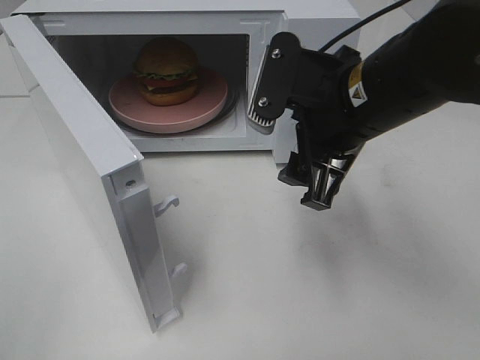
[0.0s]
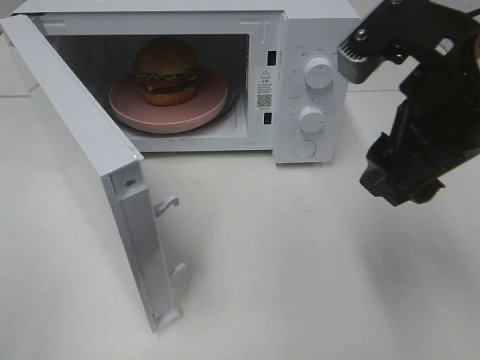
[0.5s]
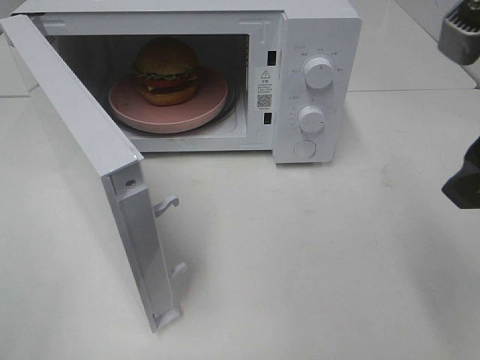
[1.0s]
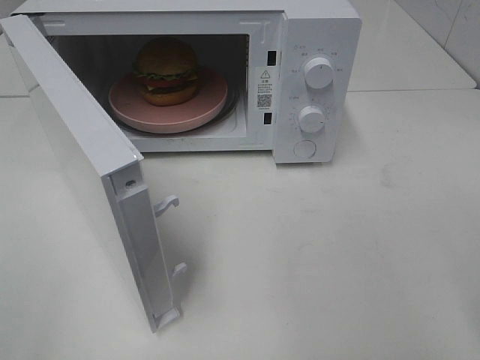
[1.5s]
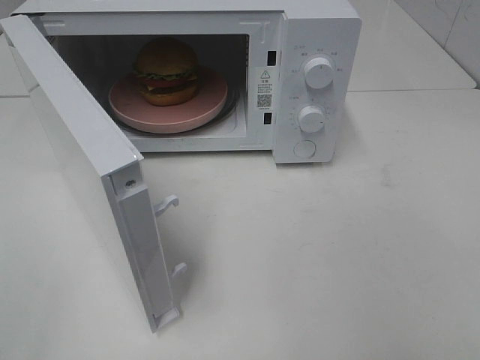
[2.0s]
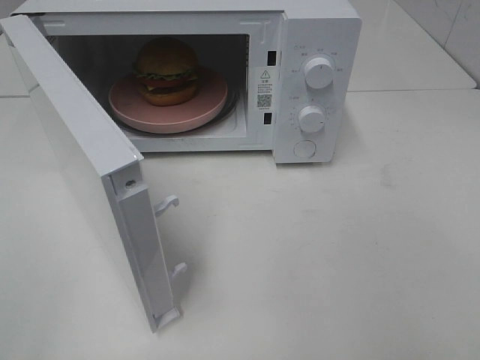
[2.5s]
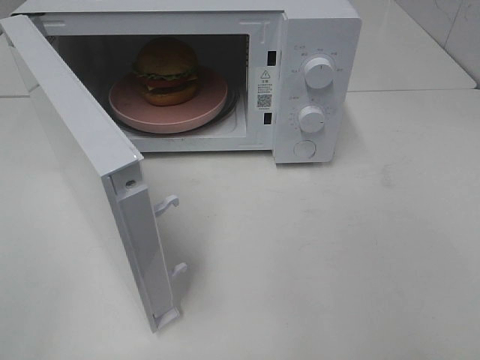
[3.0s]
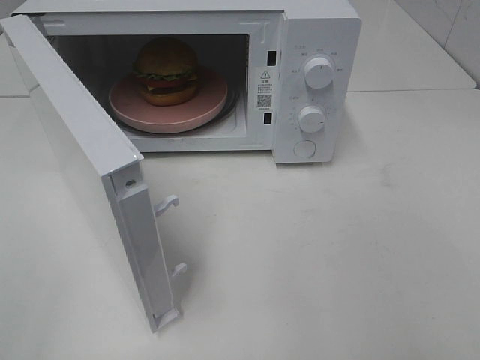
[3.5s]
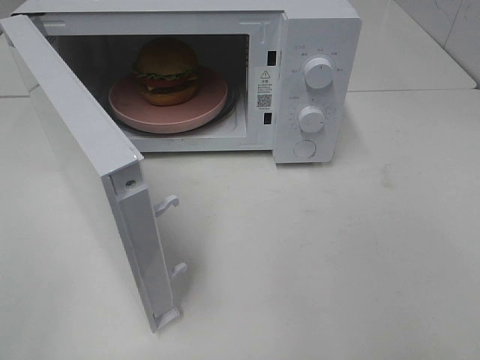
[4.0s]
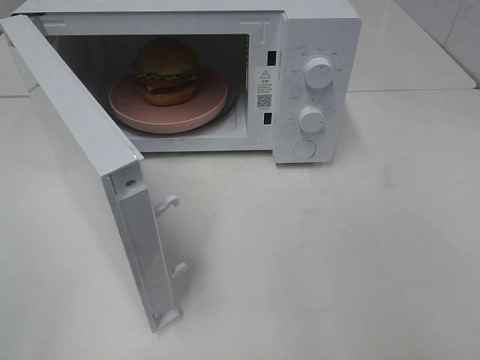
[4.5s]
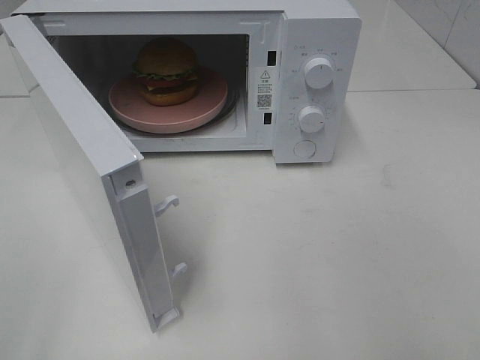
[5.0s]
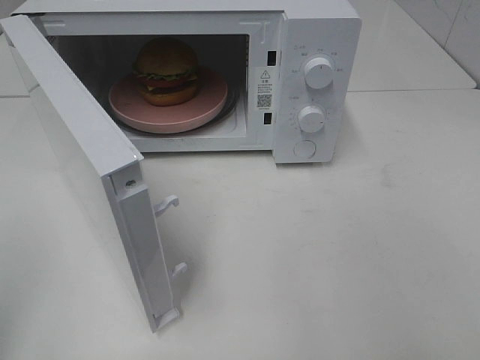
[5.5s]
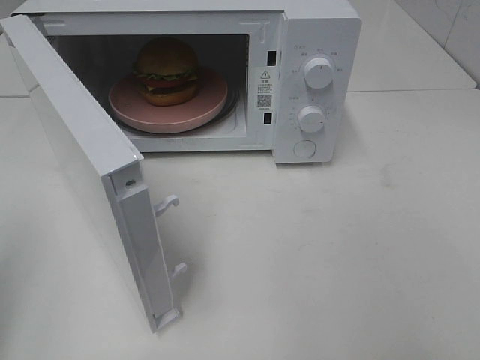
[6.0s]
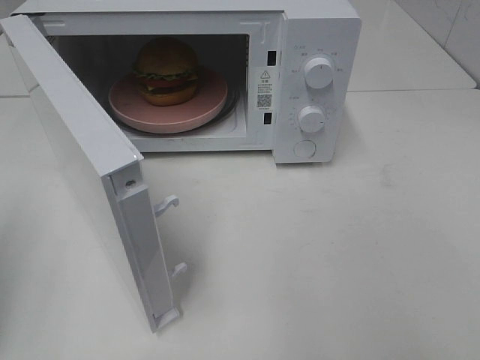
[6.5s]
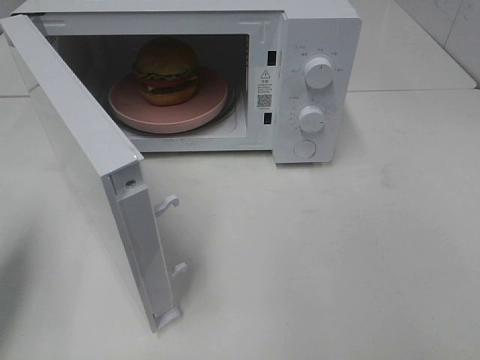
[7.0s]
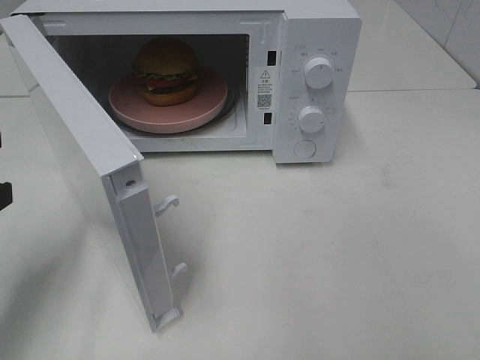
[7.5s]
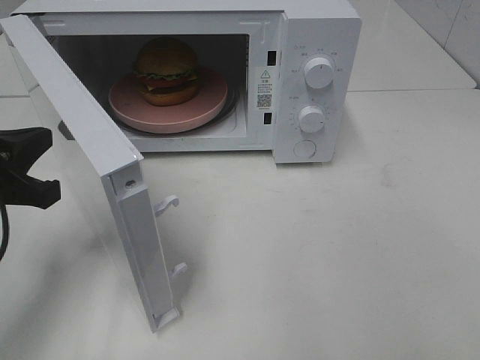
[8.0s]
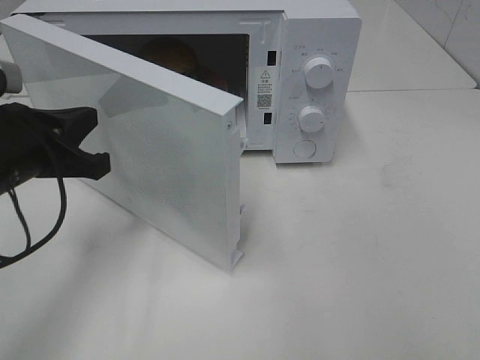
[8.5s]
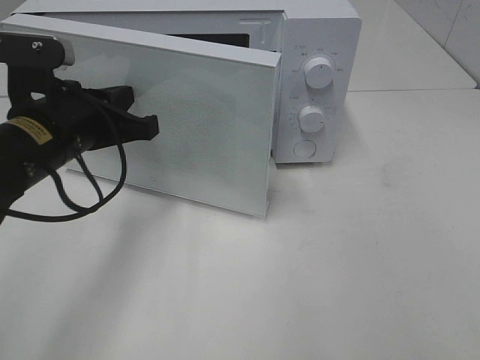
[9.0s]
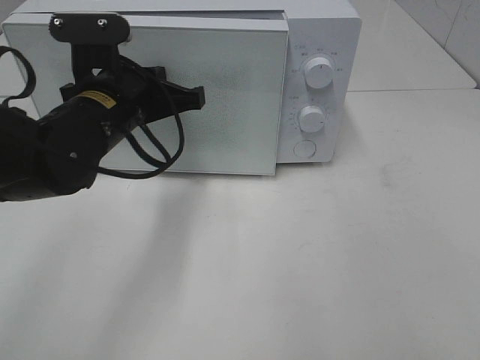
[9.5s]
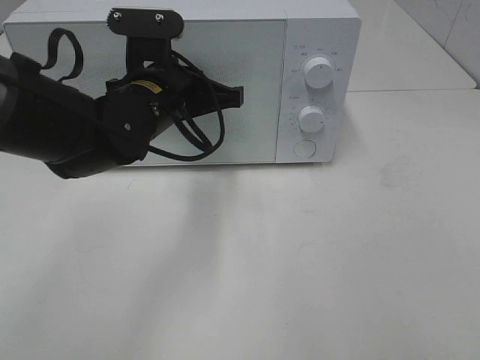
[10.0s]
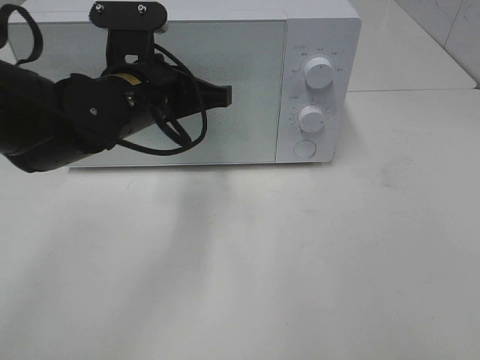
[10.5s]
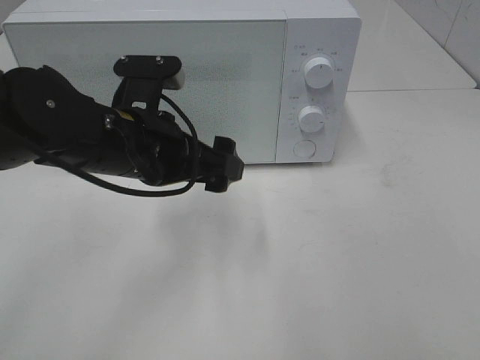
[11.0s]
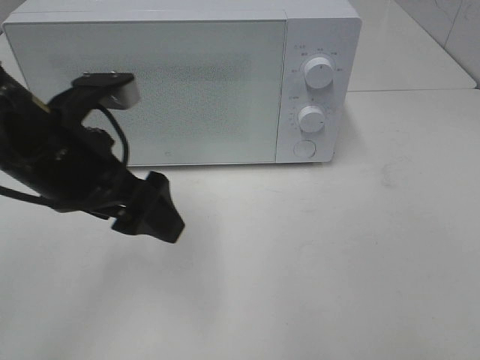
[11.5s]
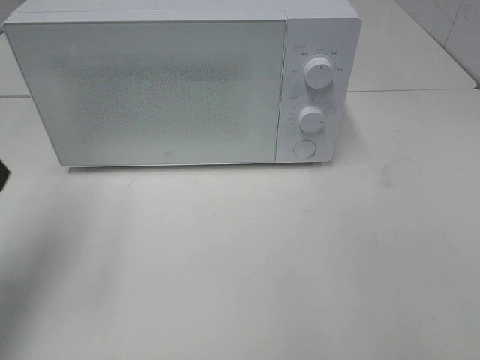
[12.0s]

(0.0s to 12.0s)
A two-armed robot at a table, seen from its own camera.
Task of the whole recording: Heat the burger.
Step, 0.0s - 10.5s: Left hand: close the microwave door.
0.0s - 2.0s: The right gripper goes about 25 cm backward and to the right.
6.0s - 8.0s: The left gripper shifts about 15 cm forward, downward and to the right.
8.0s - 10.0s: The left gripper goes some 20 cm to the right and forward.
10.0s - 12.0s: The left gripper heads to the left, backward and upward, covering roughly 25 cm, and opens up.

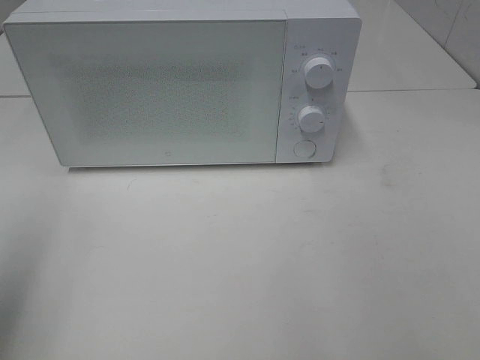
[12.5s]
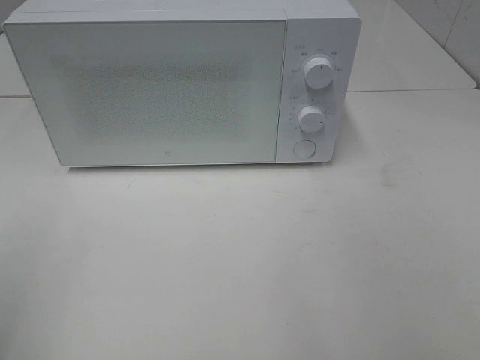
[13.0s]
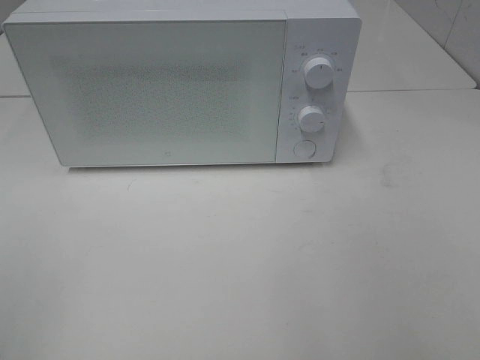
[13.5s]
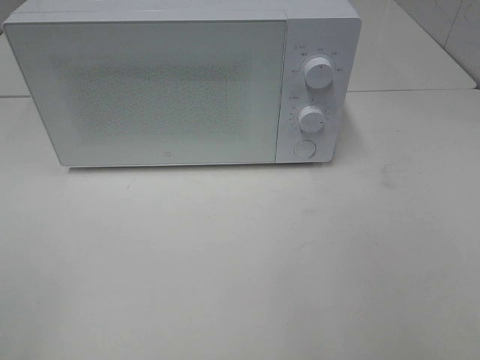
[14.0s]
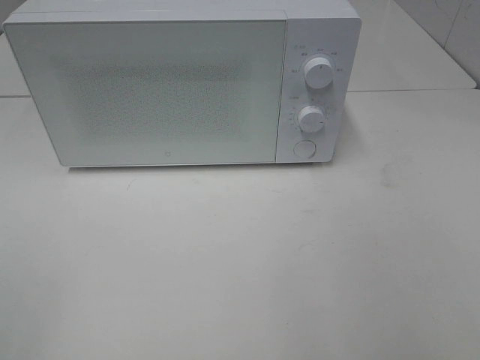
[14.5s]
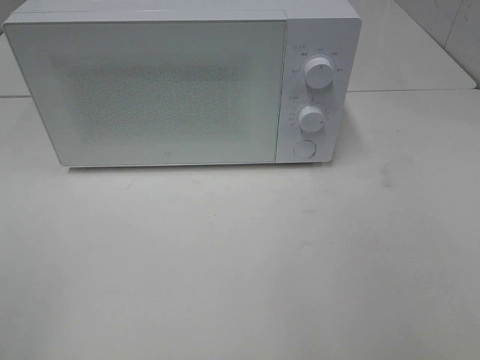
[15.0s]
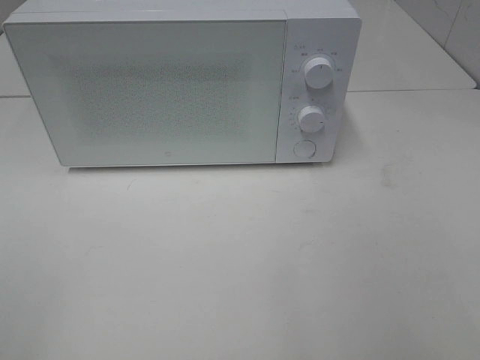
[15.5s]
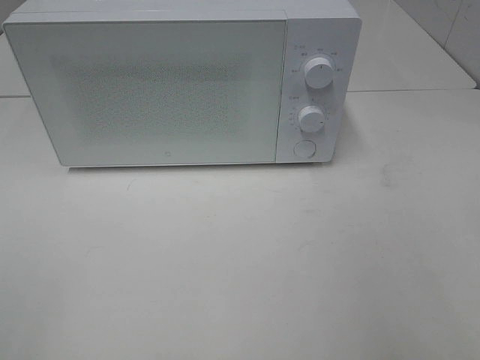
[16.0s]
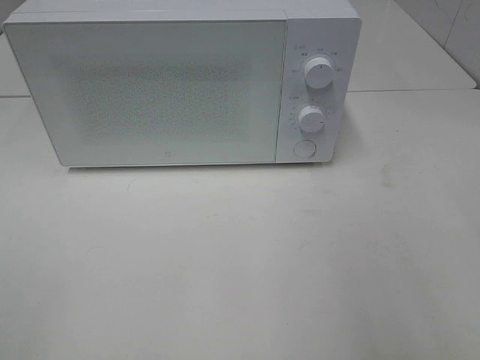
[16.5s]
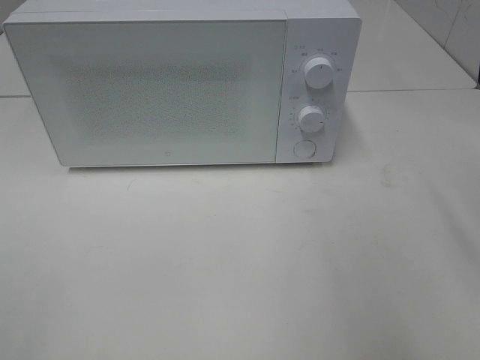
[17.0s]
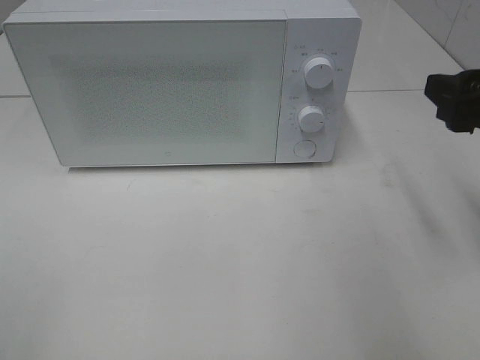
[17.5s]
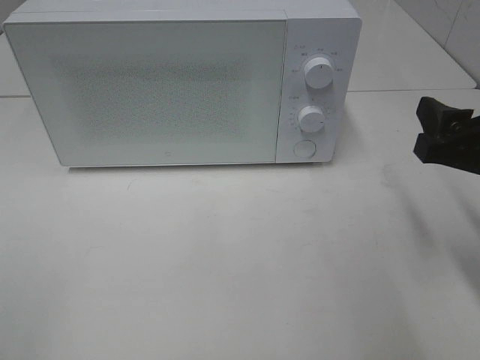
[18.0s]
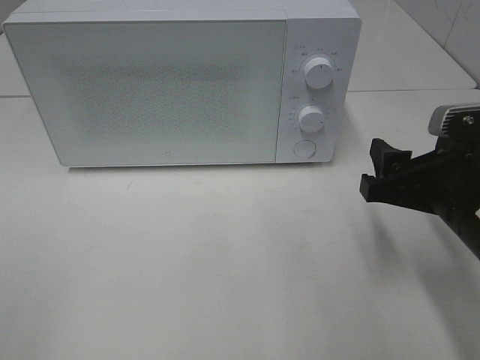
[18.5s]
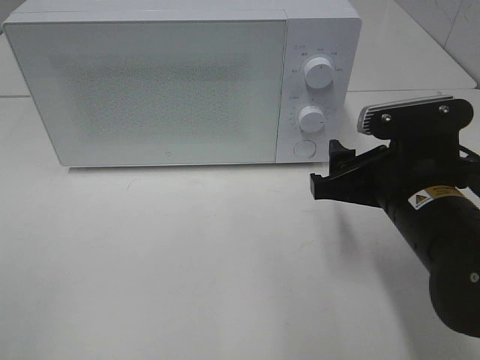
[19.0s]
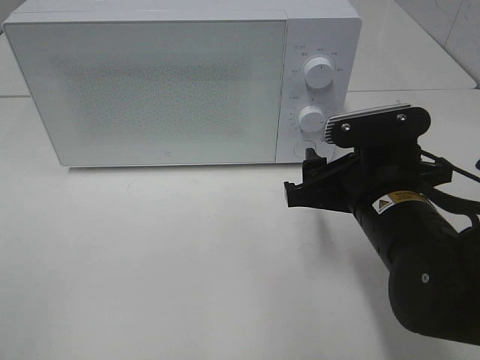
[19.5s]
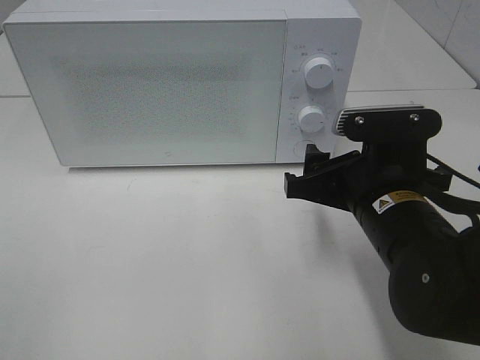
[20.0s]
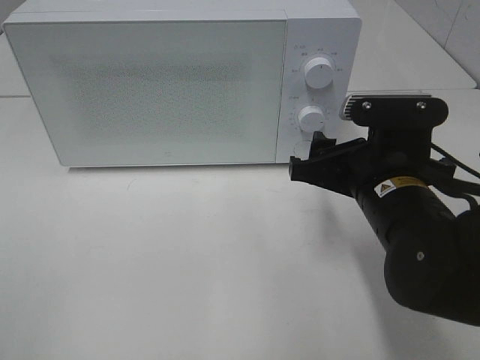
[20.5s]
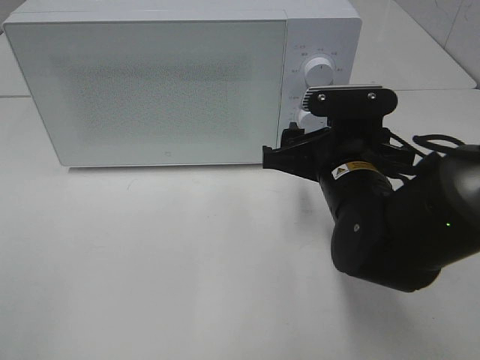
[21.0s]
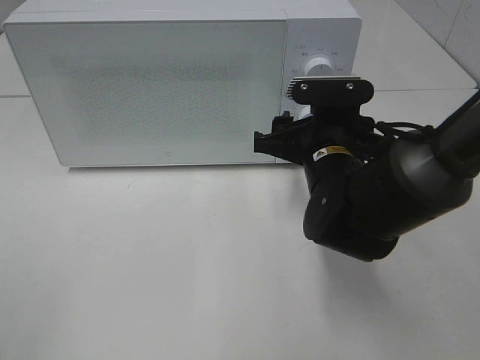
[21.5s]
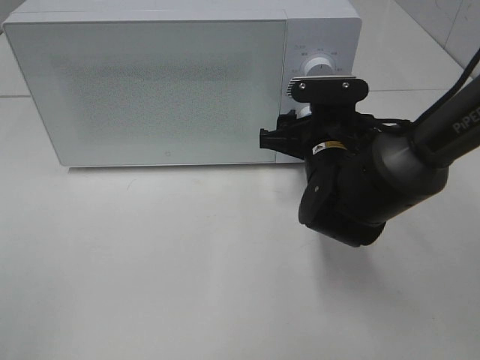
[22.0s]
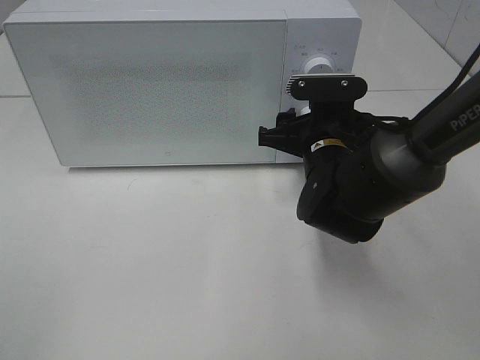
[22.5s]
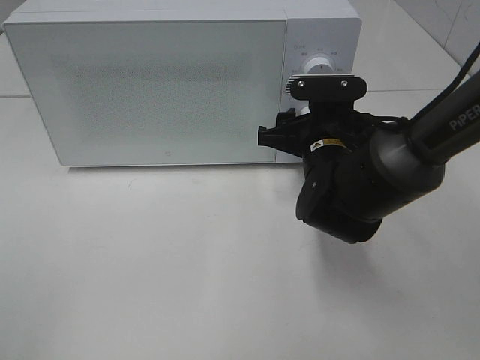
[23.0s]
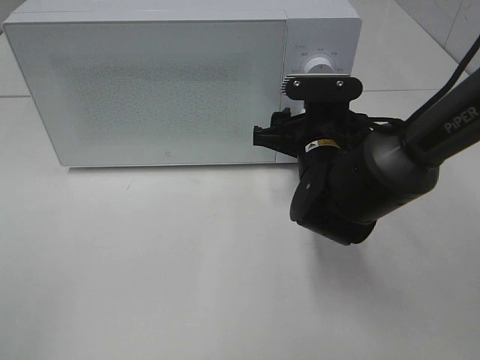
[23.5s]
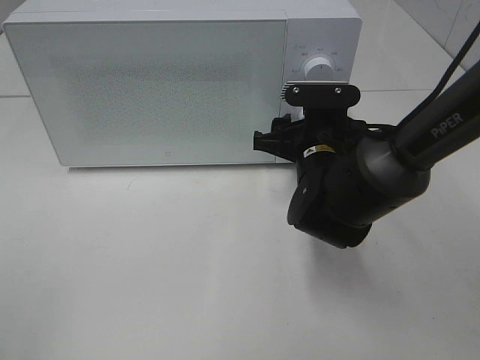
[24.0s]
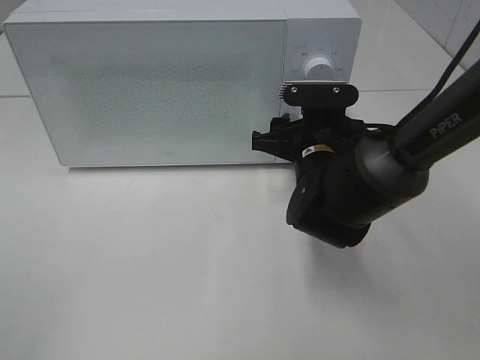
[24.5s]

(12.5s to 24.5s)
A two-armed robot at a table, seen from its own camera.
Task of the whole recording: Heat the burger.
12.5s - 14.5s: The left gripper goes about 15 cm backward.
16.5s - 18.5s: The right gripper goes approximately 20 cm downward, forward and to the left.
18.5s - 20.5s: The right gripper is displaced to the left by some 5 cm.
20.5s - 22.5s: The right gripper heads forward, covering approximately 10 cm.
22.5s - 24.5s: The two grippers keep their place.

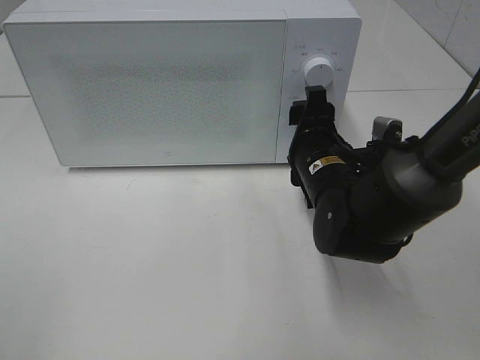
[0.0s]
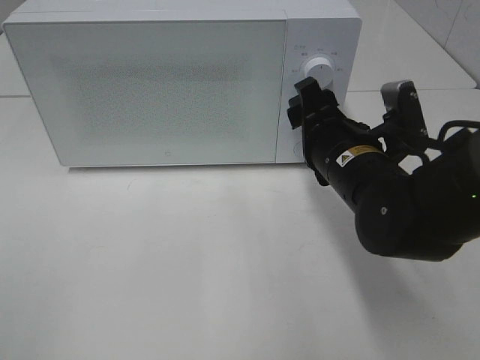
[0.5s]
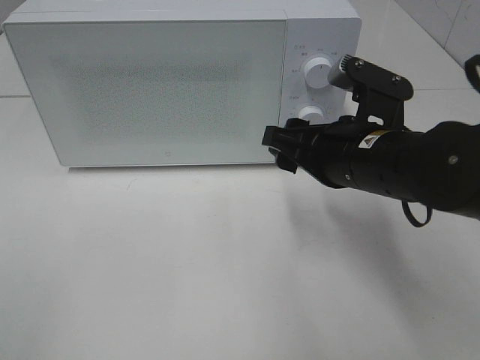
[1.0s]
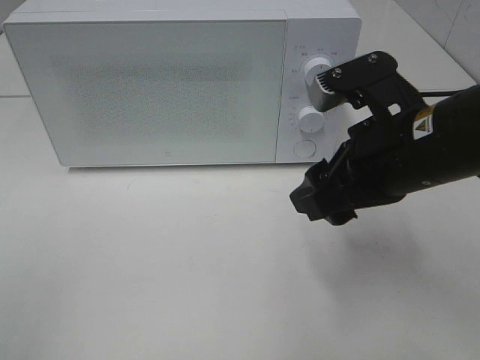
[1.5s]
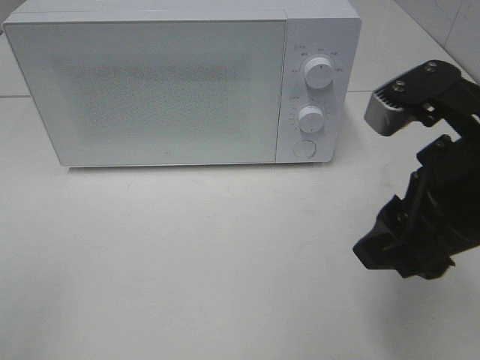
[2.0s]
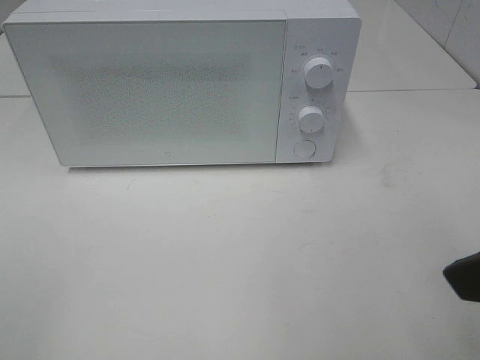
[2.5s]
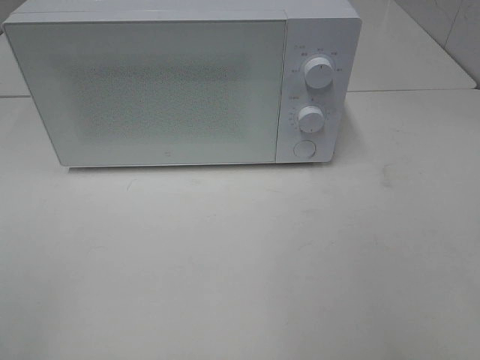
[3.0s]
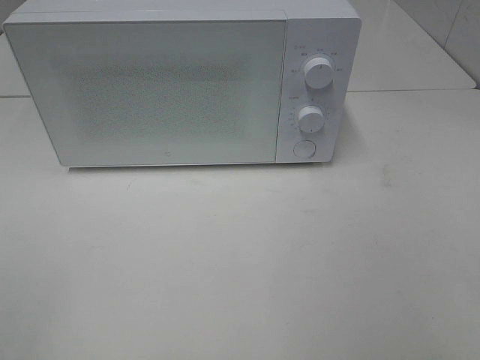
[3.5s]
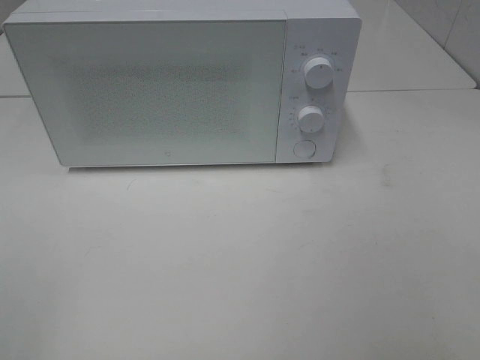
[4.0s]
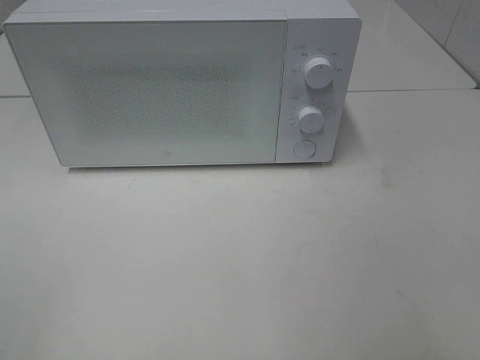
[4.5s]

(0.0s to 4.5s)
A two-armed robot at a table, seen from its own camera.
Task of the whole recording: Heat the burger.
0.0s - 2.0s: The right gripper shifts about 20 cm upward and backward.
2.0s - 4.5s: The right gripper heads backward and to the right, covering roughly 20 cm.
